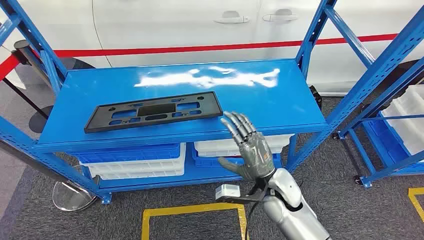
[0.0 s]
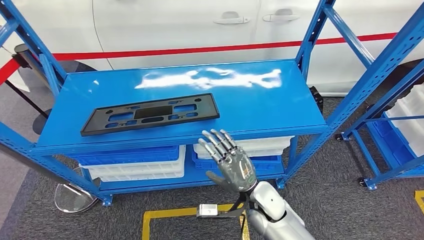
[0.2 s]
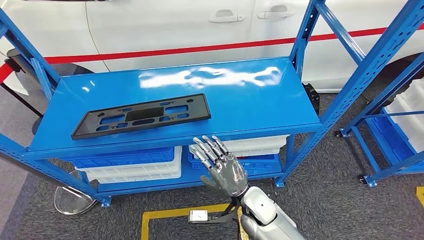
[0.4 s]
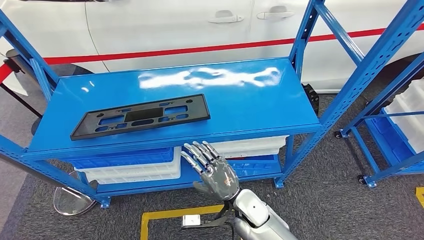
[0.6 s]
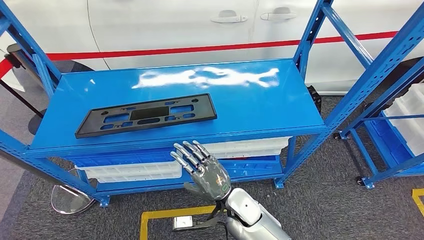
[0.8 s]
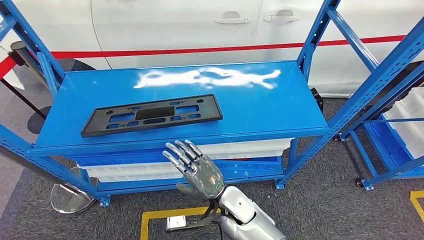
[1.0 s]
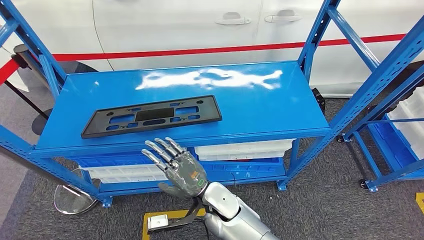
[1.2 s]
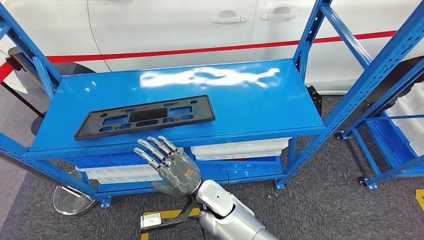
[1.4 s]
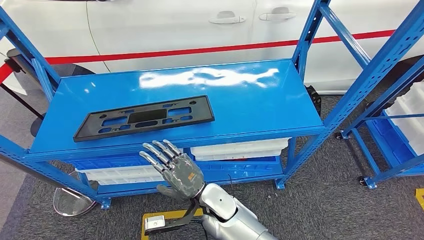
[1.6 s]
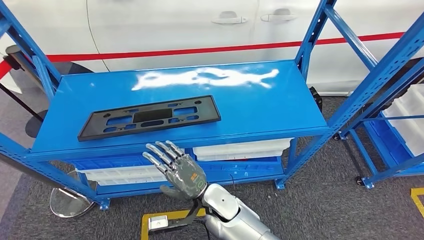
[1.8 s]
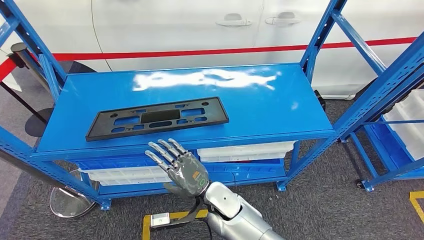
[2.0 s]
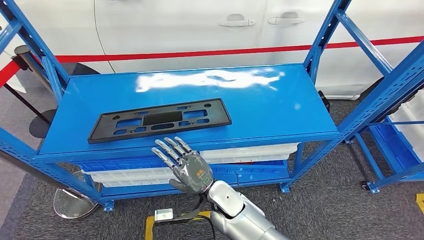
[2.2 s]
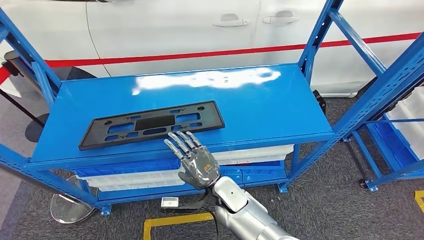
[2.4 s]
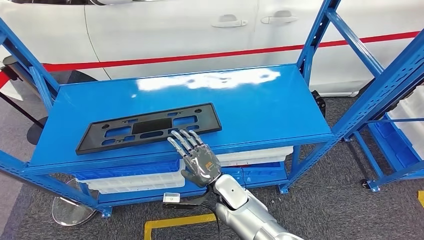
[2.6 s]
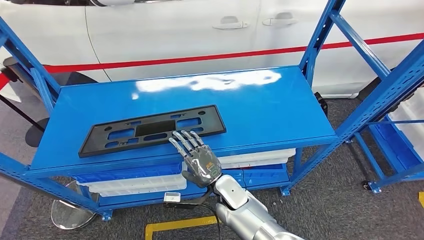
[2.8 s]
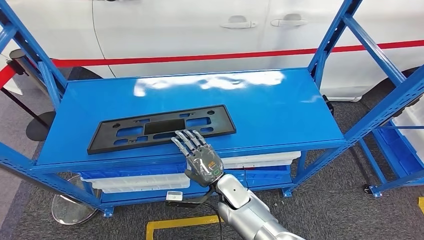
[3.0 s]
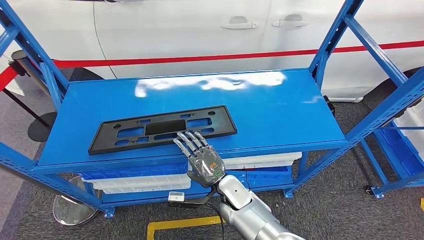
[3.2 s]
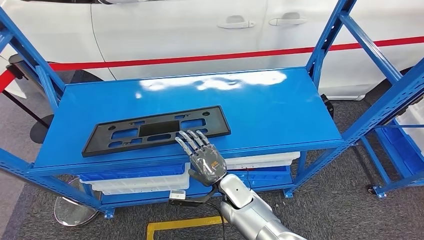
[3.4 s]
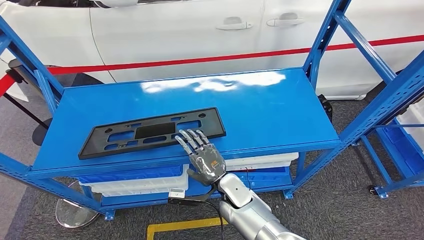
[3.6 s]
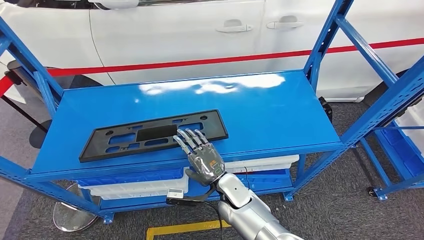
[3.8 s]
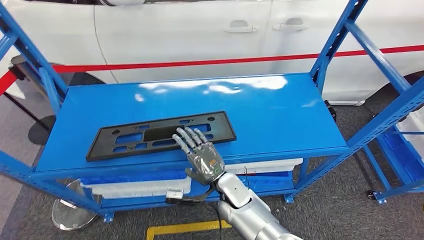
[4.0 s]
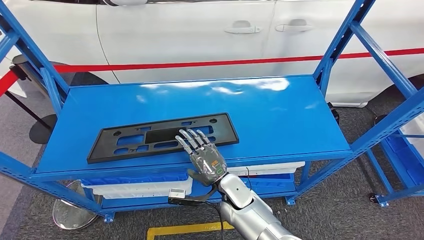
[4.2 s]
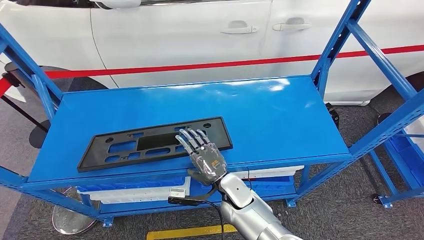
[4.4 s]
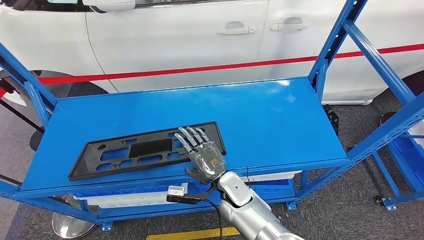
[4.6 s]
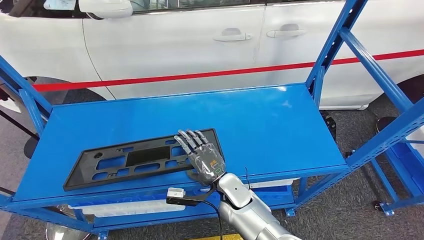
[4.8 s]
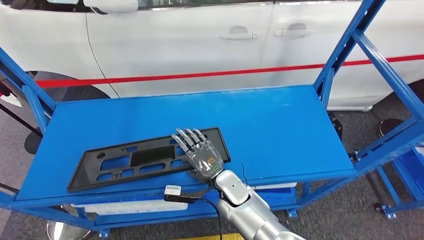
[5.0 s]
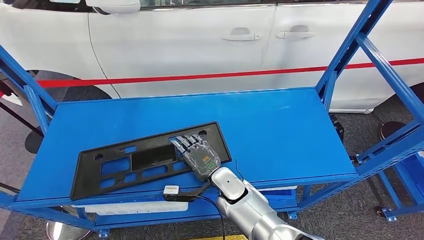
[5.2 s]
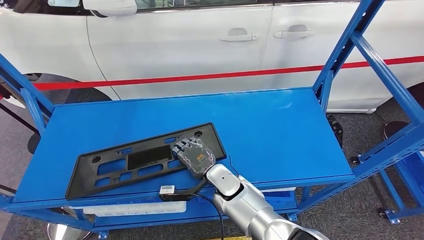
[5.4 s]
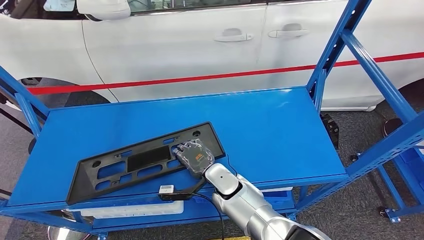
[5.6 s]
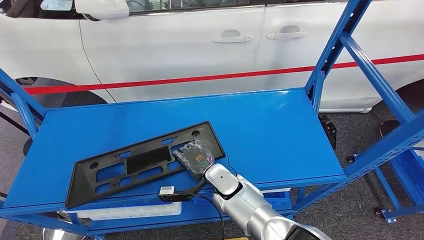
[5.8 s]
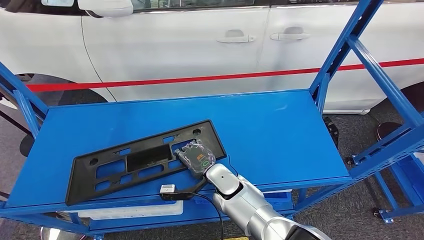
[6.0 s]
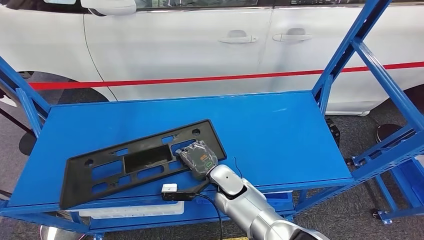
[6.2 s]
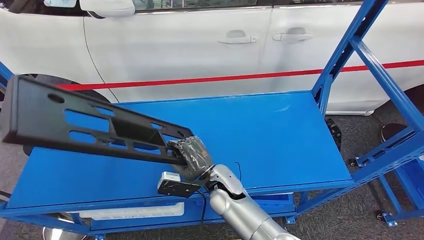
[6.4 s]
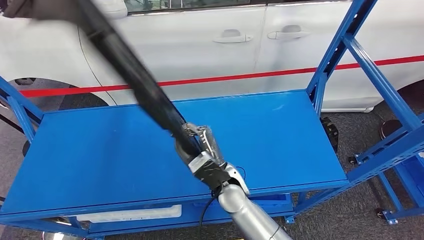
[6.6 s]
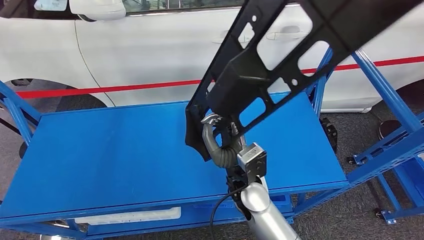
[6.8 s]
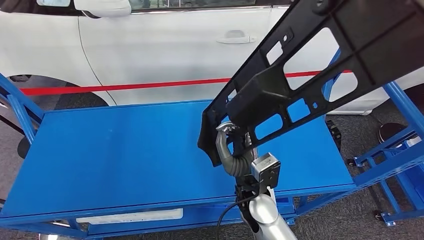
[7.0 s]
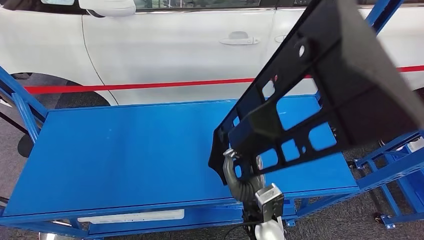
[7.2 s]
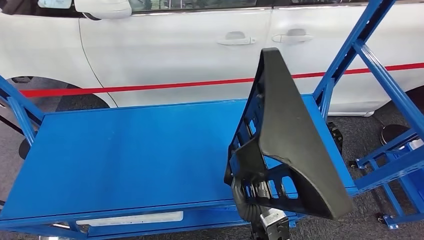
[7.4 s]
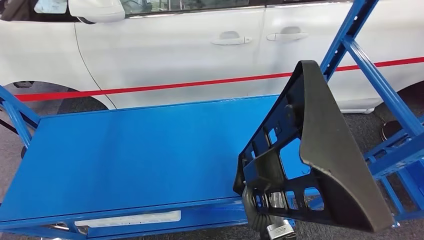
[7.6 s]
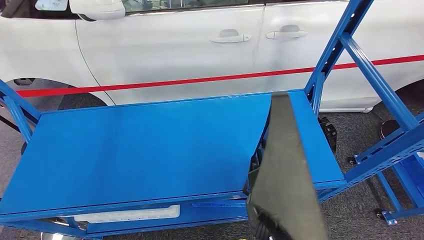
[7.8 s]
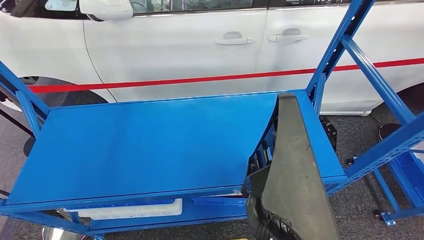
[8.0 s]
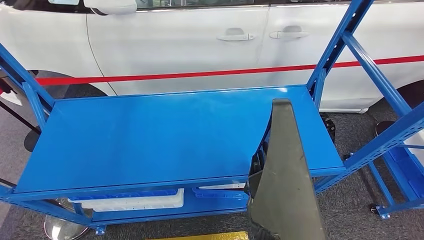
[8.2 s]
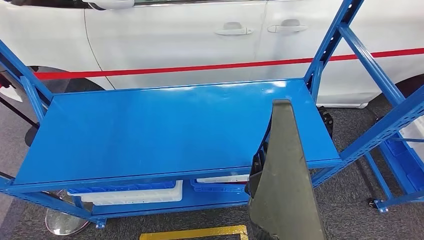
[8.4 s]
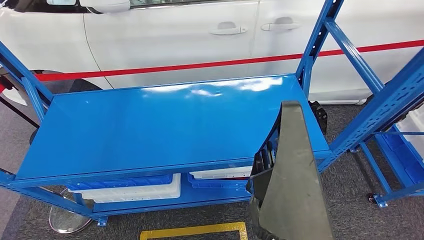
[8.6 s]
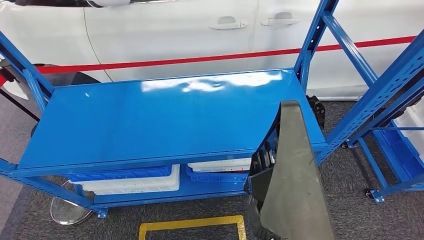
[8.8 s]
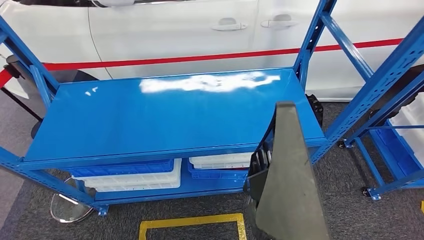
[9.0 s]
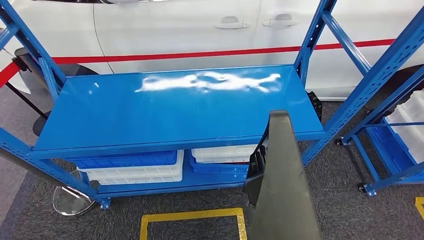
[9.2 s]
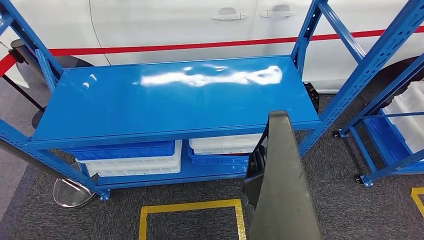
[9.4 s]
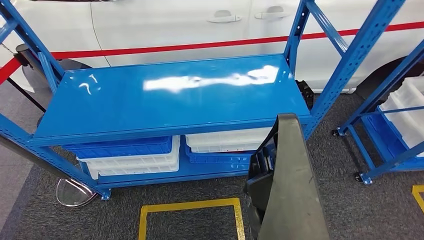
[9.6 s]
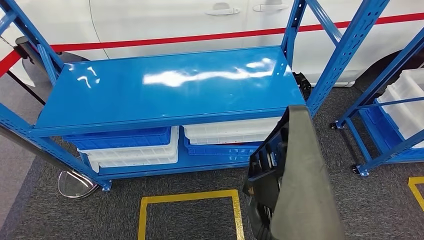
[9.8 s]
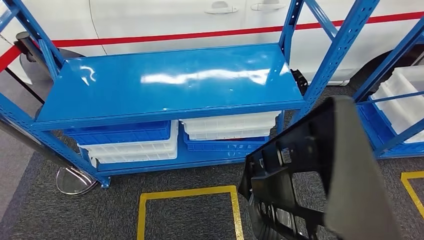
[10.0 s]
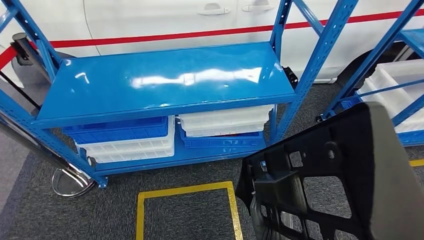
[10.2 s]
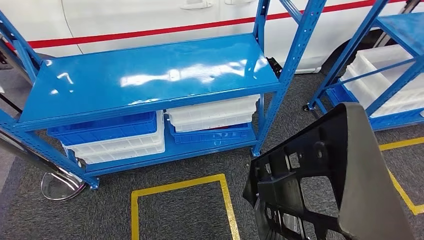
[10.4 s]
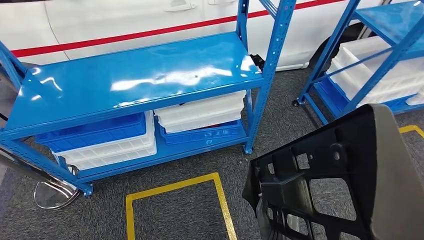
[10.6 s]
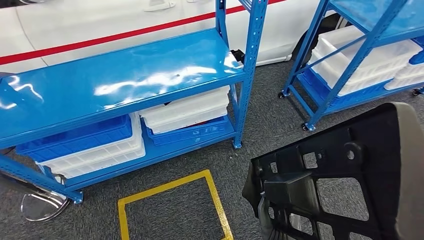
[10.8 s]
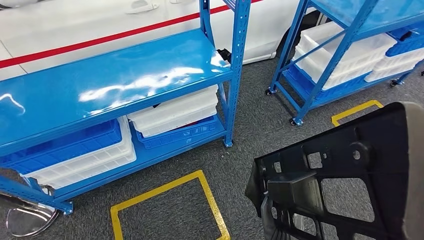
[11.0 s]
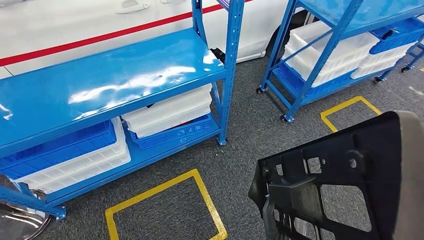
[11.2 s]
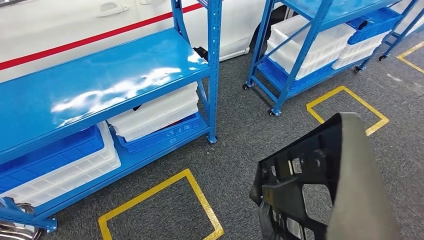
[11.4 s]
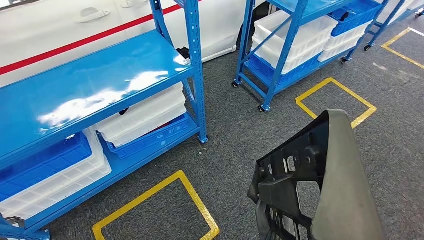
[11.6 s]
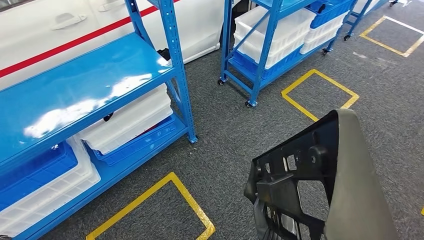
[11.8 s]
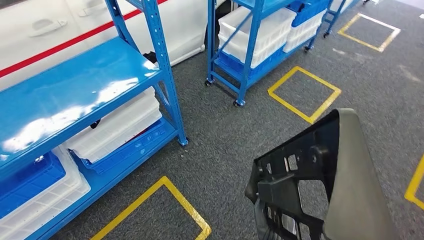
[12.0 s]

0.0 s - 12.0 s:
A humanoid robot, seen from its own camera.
Step, 0.0 s - 9.4 s: Pick up the large material from the shelf.

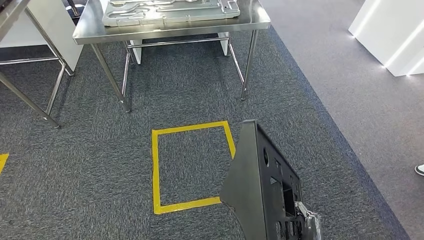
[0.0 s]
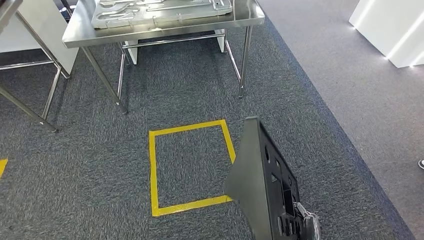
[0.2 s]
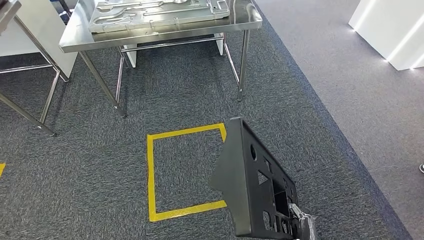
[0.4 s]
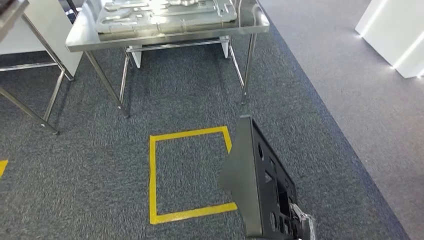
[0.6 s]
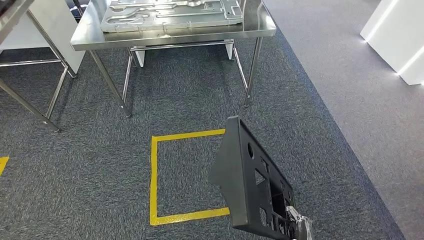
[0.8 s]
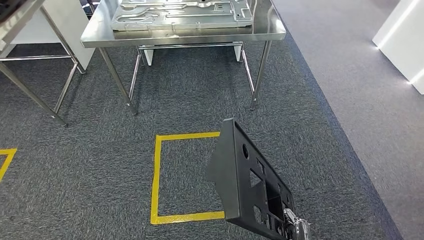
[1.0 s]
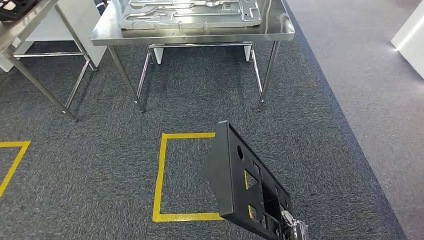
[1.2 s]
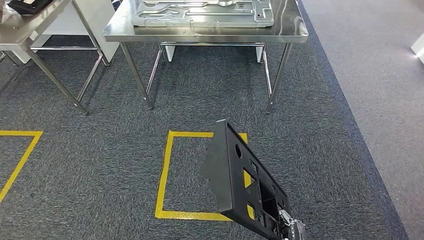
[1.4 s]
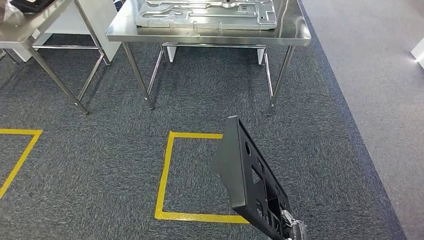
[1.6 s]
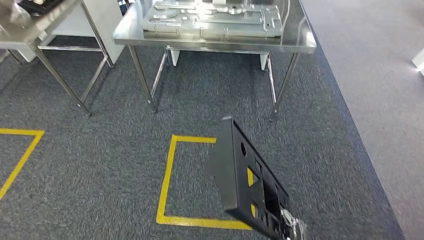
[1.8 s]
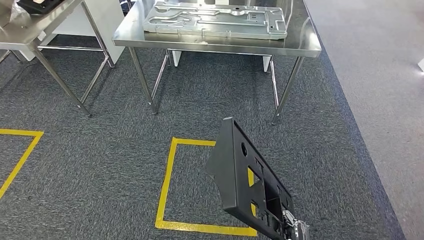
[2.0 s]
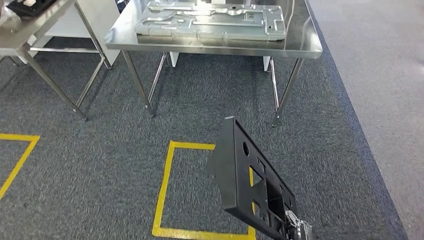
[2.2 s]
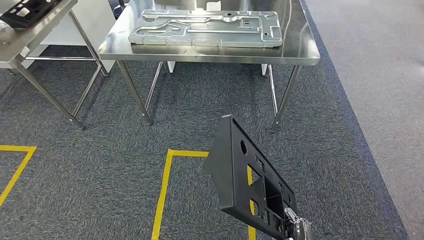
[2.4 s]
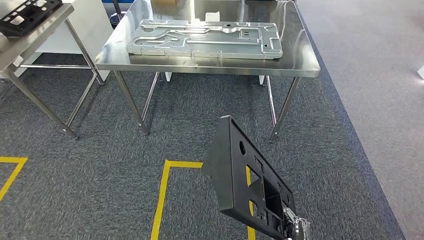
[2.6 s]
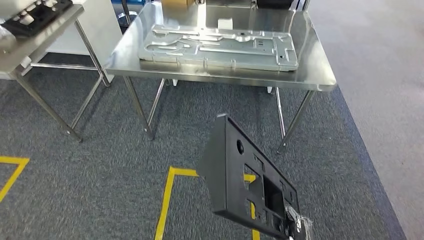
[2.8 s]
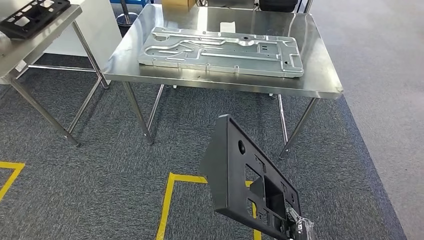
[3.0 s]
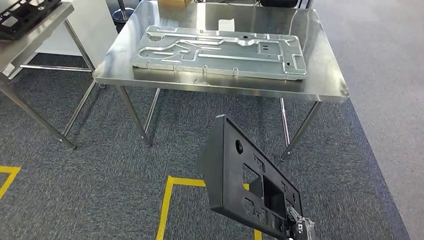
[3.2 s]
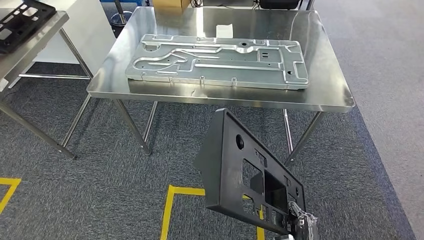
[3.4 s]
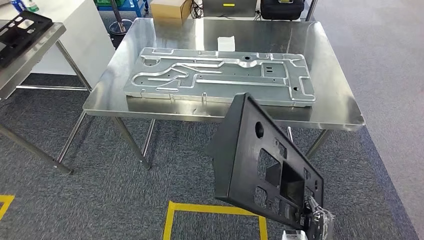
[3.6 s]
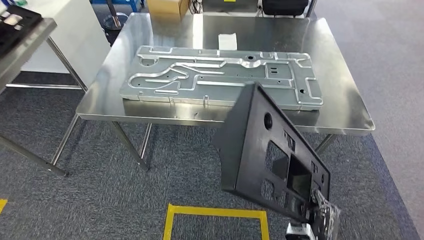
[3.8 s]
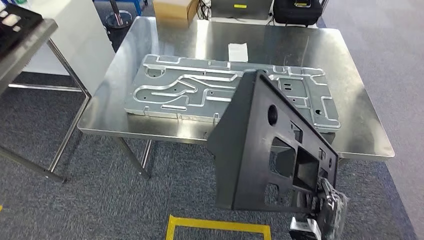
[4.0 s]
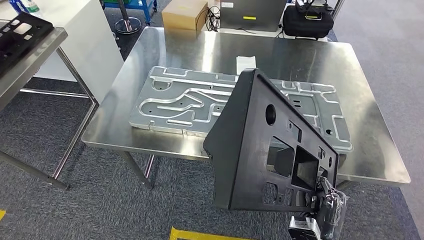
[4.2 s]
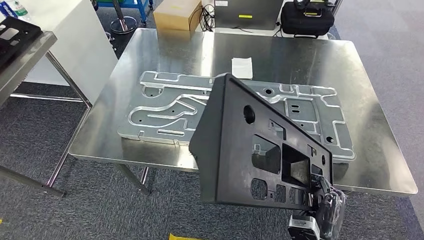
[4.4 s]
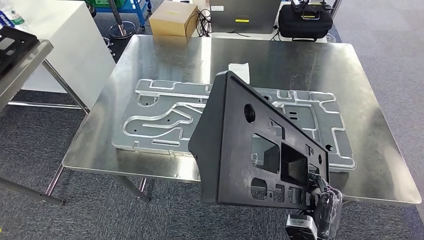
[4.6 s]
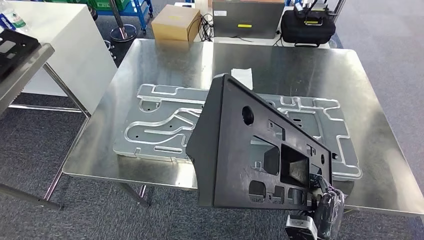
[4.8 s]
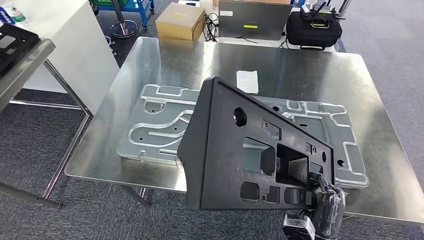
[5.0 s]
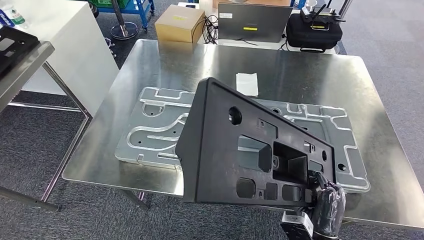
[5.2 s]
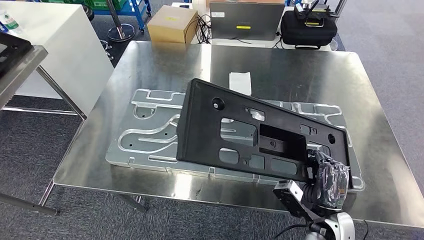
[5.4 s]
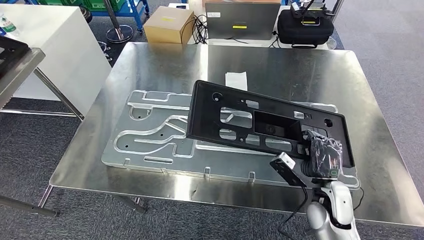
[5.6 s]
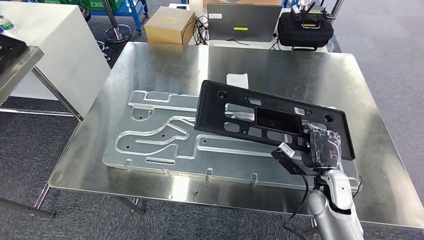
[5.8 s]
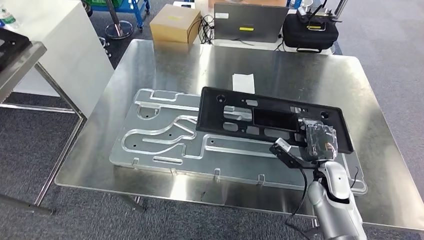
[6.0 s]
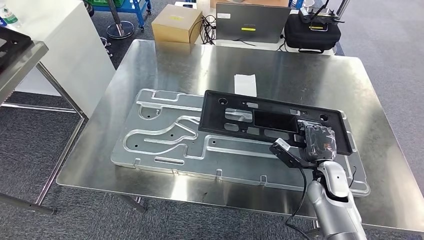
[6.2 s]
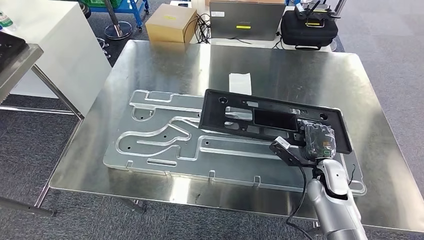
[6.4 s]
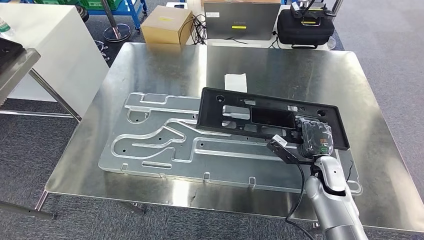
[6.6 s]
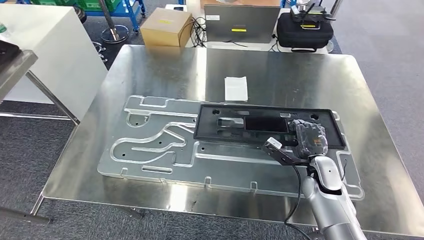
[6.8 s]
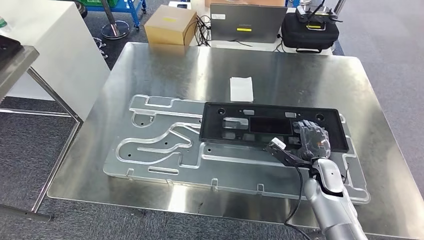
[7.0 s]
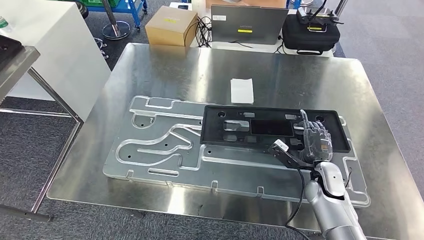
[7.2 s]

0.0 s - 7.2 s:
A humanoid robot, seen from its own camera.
Step, 0.0 s - 4.0 s: Move the large material to the workbench.
